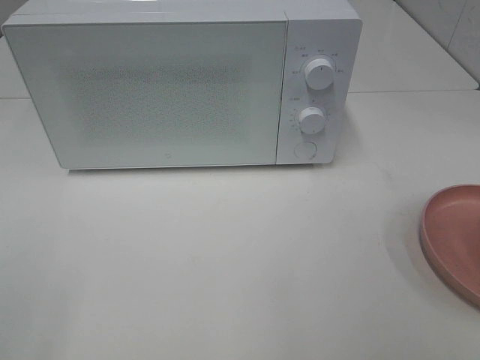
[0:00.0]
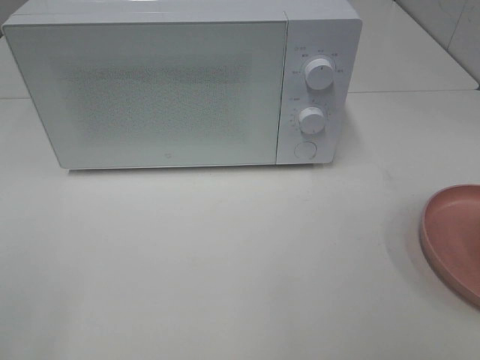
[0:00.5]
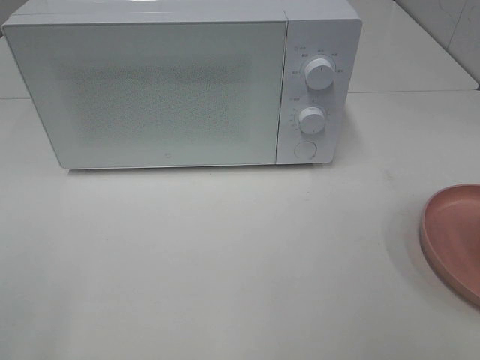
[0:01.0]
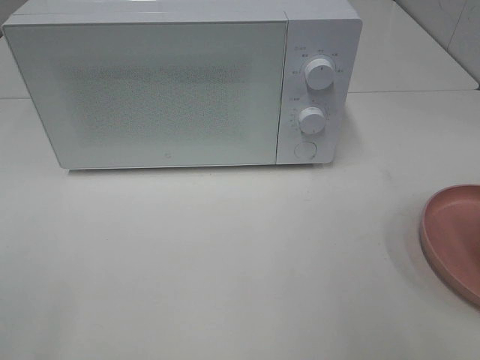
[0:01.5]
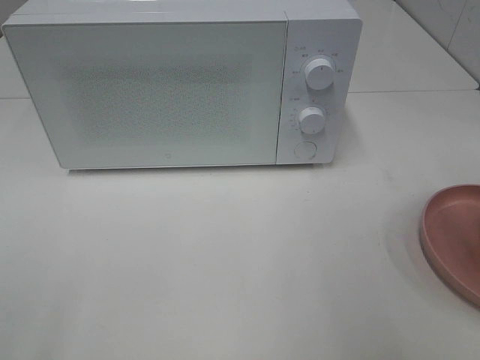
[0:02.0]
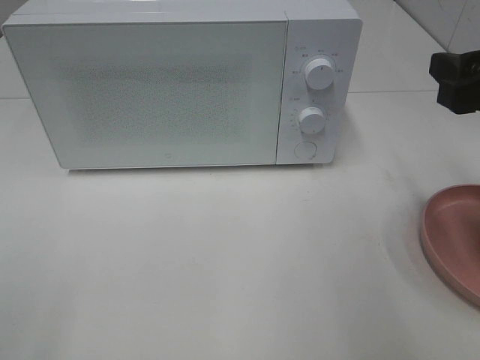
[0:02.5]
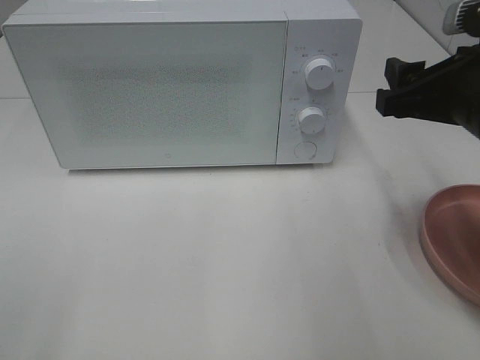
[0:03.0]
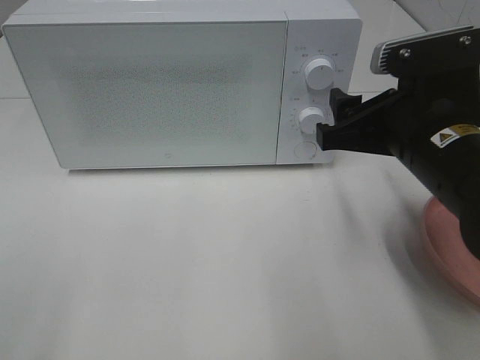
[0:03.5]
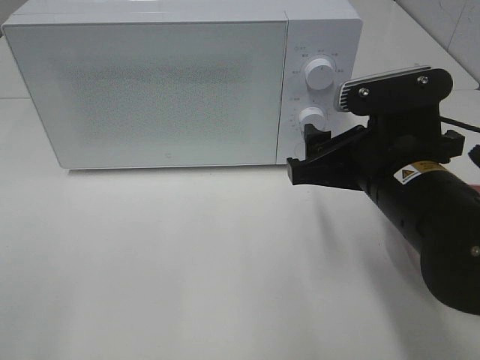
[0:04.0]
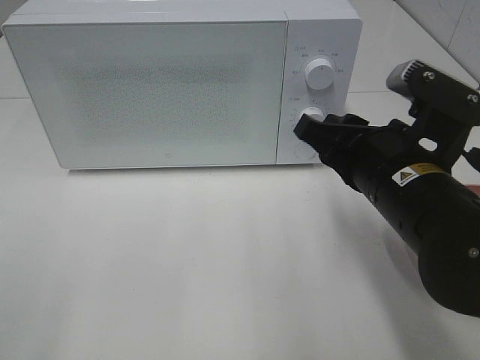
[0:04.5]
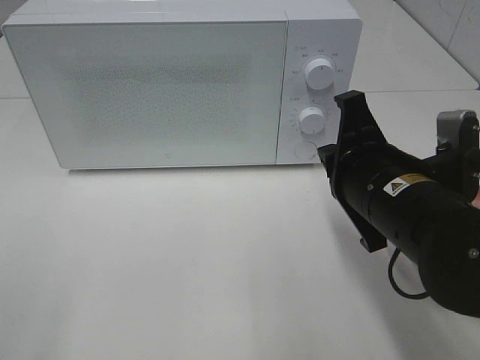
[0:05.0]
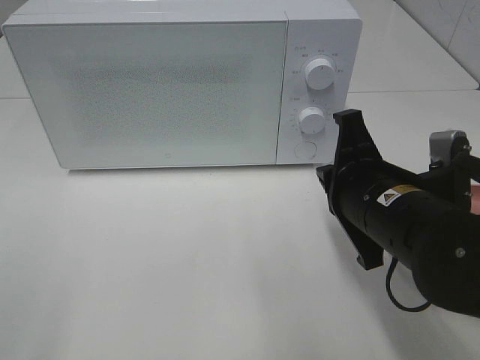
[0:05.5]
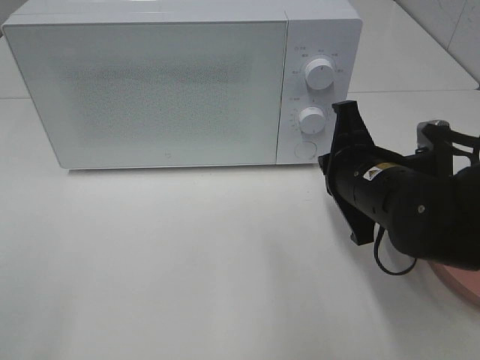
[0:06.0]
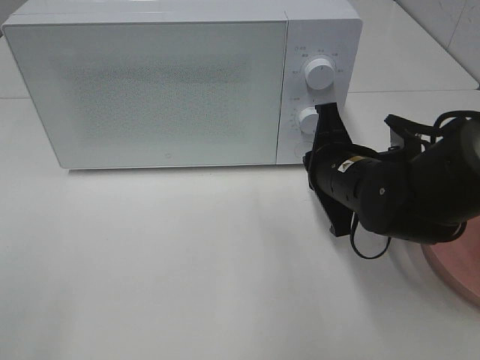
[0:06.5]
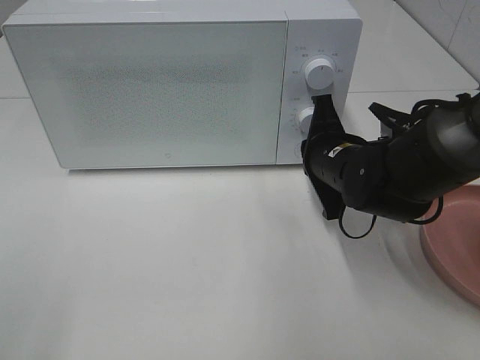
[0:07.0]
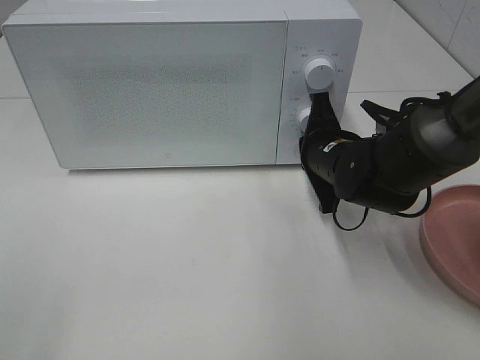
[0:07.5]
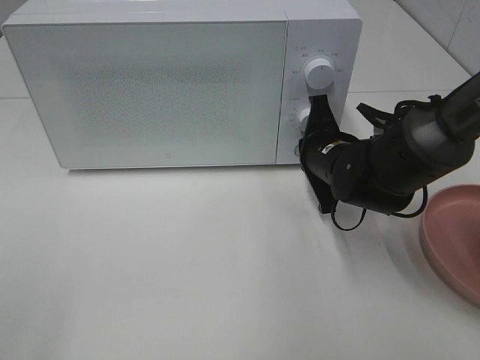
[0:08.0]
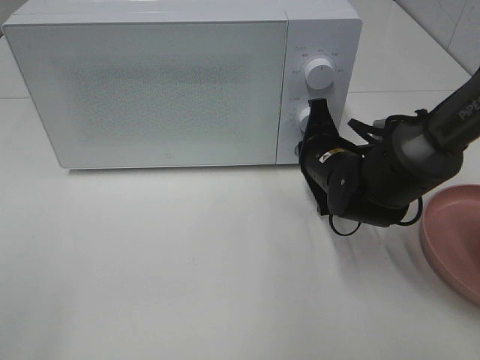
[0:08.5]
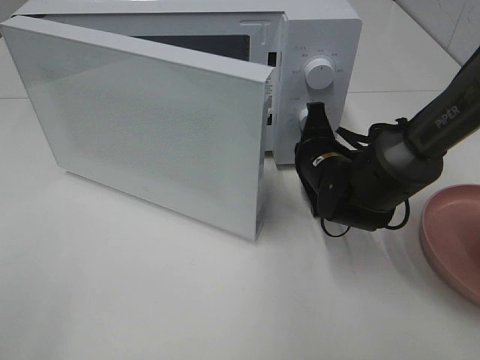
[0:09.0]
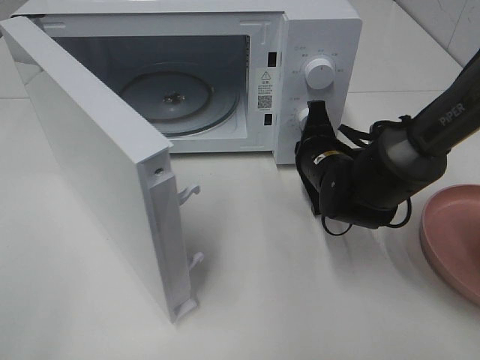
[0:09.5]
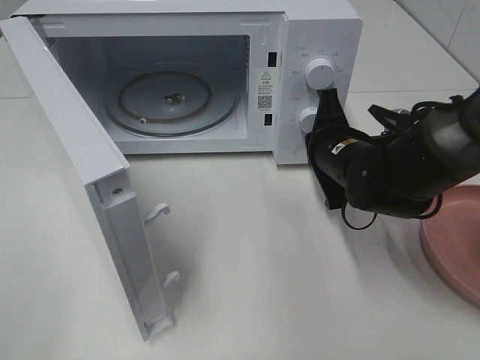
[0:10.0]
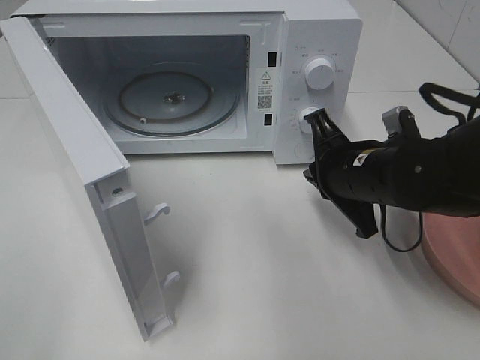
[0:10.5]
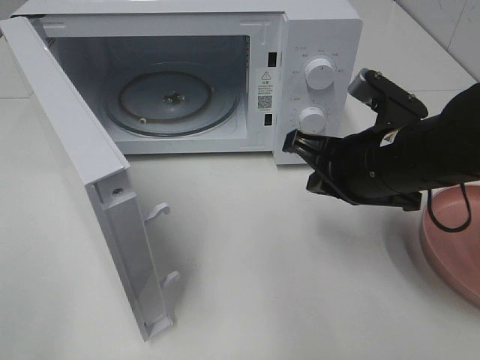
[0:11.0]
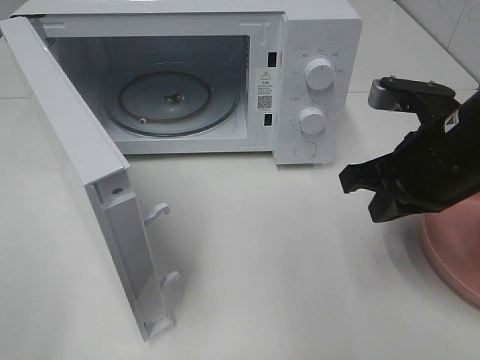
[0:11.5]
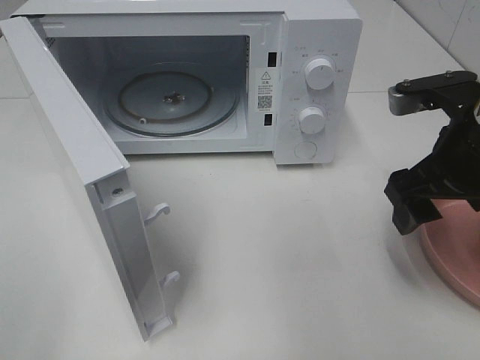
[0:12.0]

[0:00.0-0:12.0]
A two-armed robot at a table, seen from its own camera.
Task of the whole recording: Heat the burger.
Step, 0:00.0 to 0:10.0: Right hand: press the switch.
0:02.0 to 0:04.0: The right gripper is displaced to the left and downward by roughly 15 cm.
0:04.0 to 0:06.0: The right gripper shifts by approximately 5 cm, and closes its fingers.
0:06.0 to 0:08.0: The right gripper travels forward by approximately 10 cm.
0:10.0 to 0:12.0: The right gripper travels upward, backward and to the right by roughly 15 cm, and opens up.

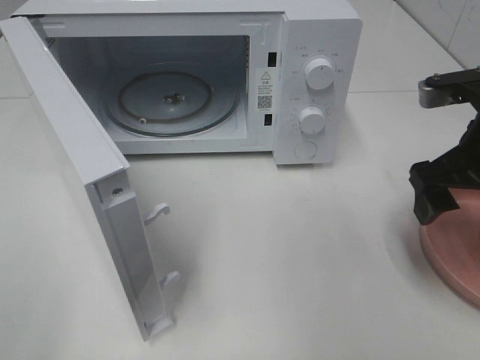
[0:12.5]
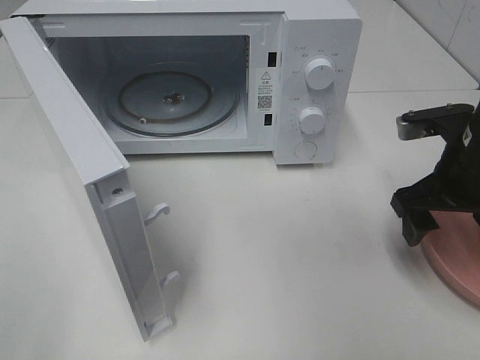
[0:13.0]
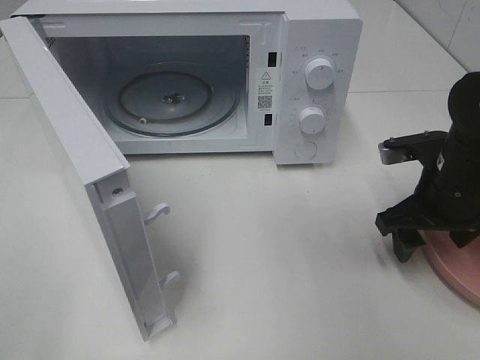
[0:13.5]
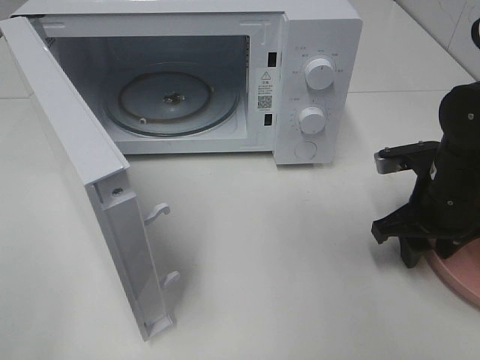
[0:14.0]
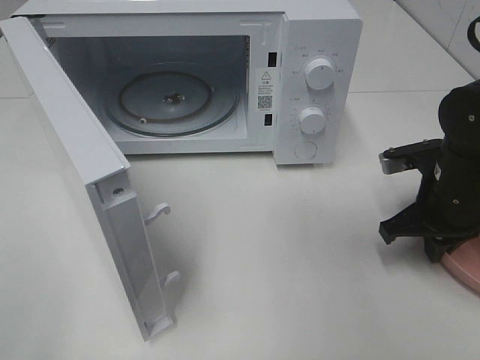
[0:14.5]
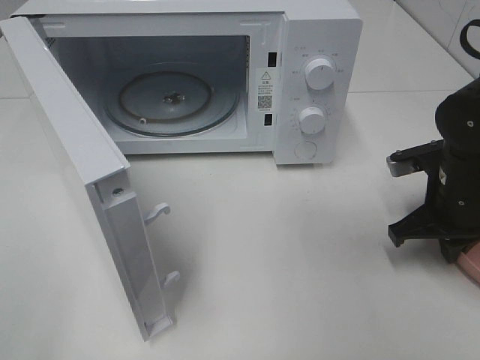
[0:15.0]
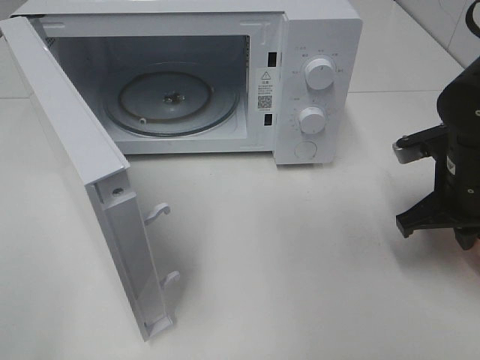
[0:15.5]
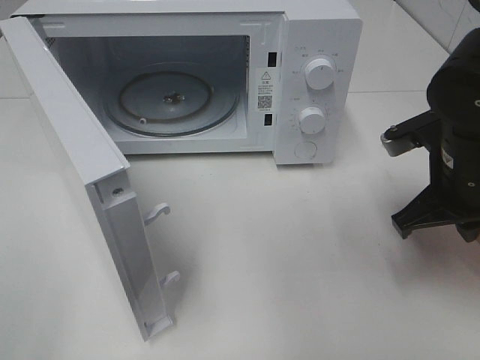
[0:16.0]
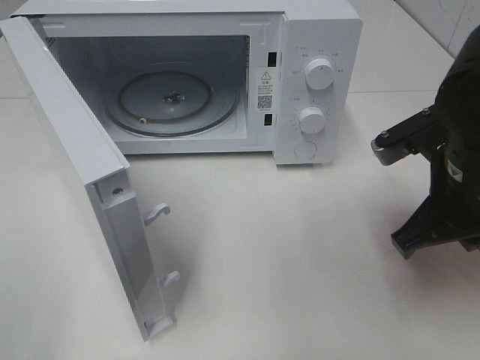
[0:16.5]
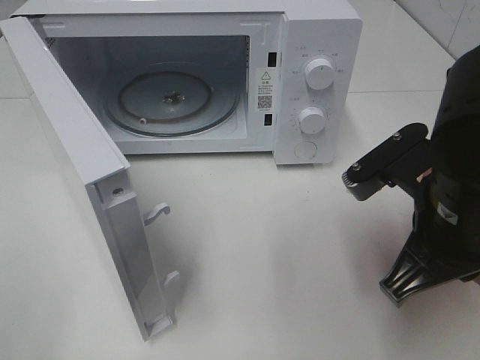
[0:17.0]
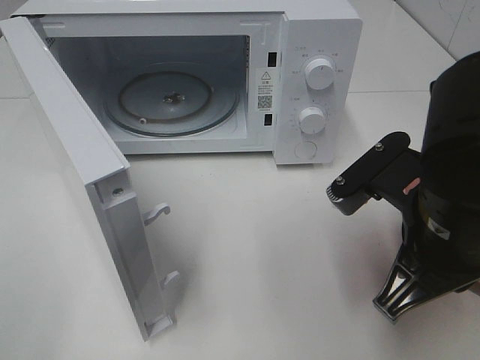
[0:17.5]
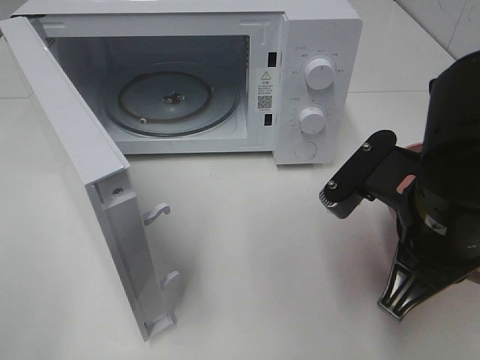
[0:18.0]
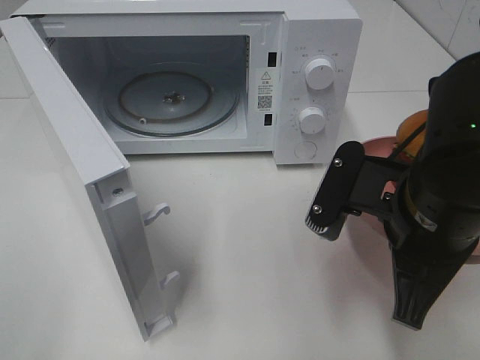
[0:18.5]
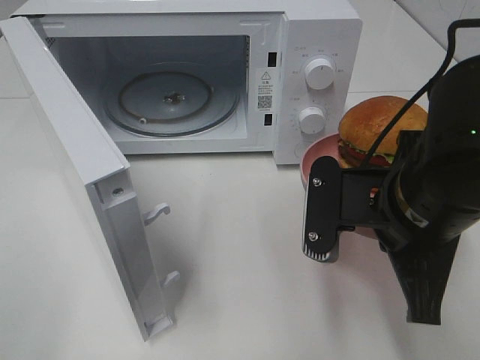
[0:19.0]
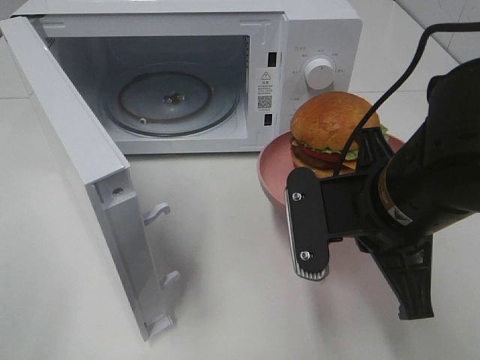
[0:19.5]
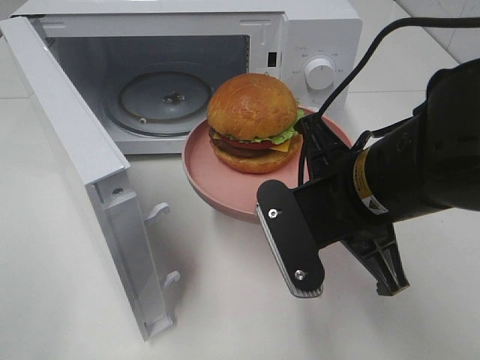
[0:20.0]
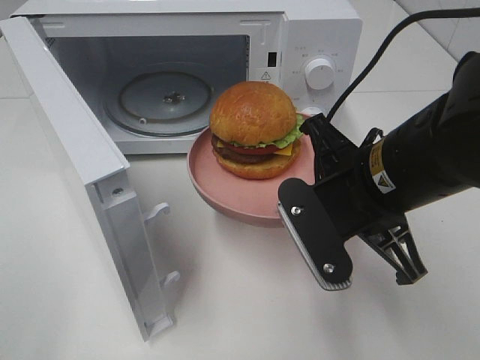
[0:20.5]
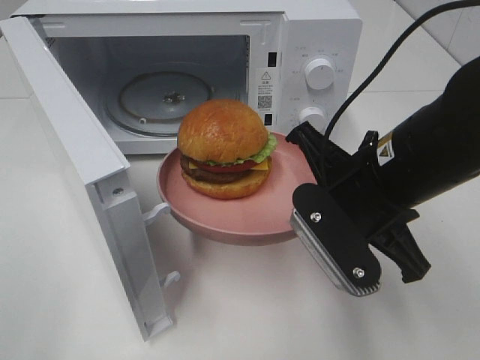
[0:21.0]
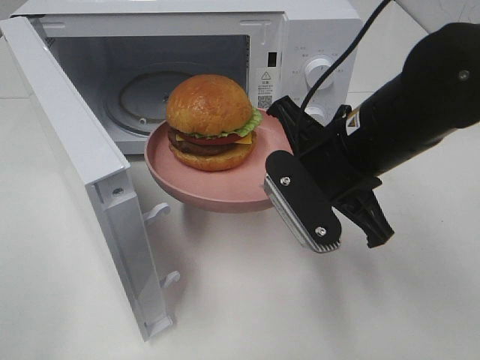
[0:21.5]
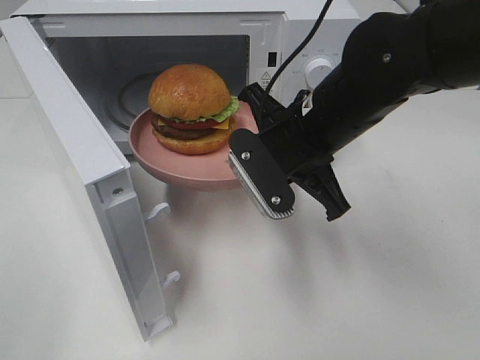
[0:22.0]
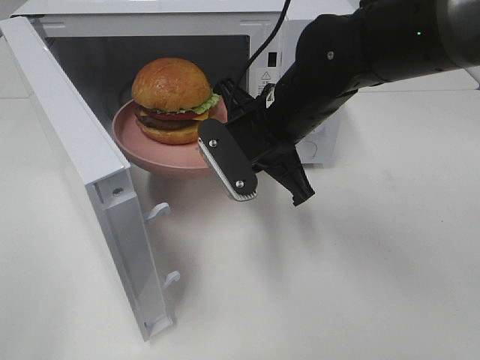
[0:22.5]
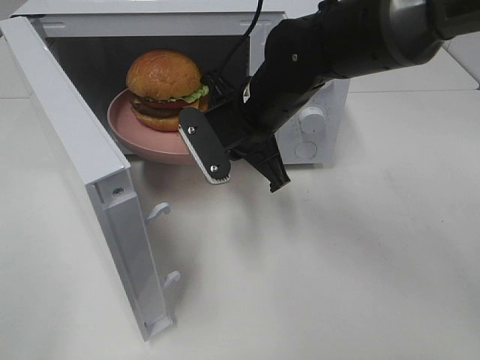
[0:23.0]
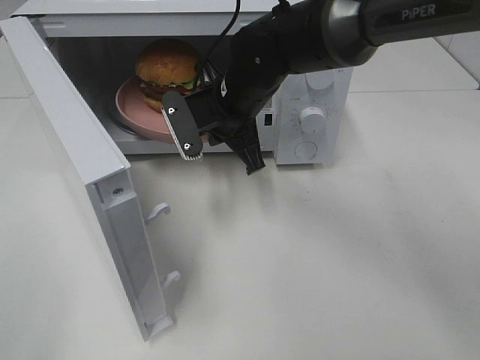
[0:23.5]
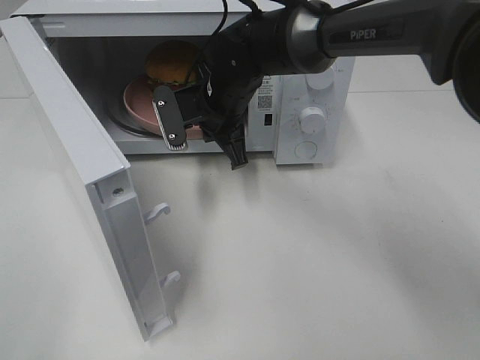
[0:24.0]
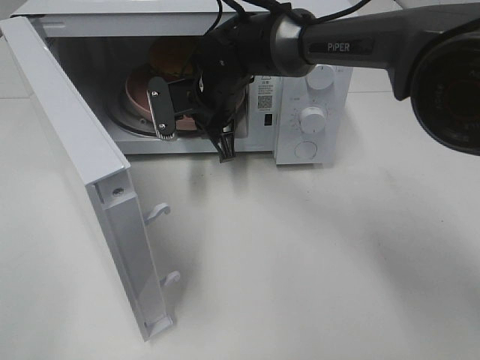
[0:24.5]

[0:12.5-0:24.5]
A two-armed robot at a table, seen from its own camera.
Task of the whole recording: Heat the burger.
Step, 0:12.5 to 0:14.5: Right hand: grab the plate with the hamburger.
0:12.5 to 0:14.5: The right gripper goes roughly 10 cm downward, and closes.
0:14.5 to 0:16.5: The right gripper travels upward, backward and to the left by some 10 cm.
0:16.5 to 0:18.5: The right gripper is displaced to the left by some 5 cm.
0:20.5 to 0:22.5: The right gripper moves forward and to the left, approximately 15 cm.
0:22.5 to 0:24.5: The right gripper is displaced forward and to the left by approximately 15 cm.

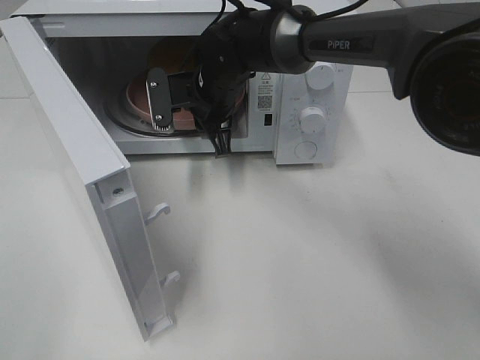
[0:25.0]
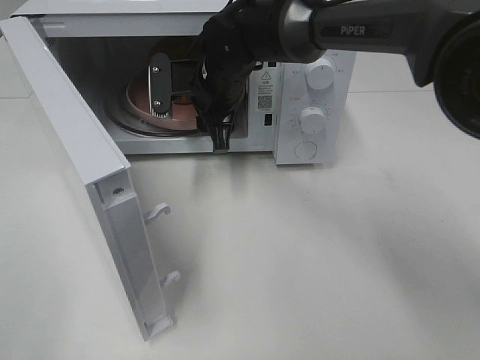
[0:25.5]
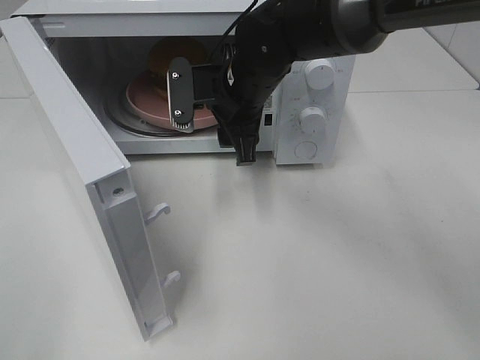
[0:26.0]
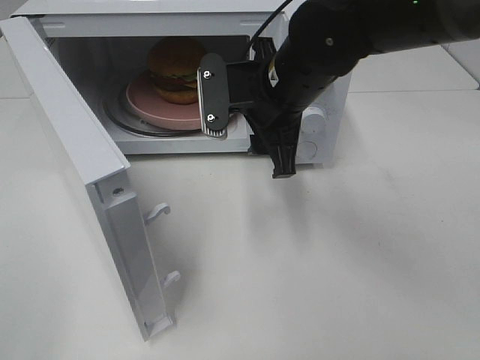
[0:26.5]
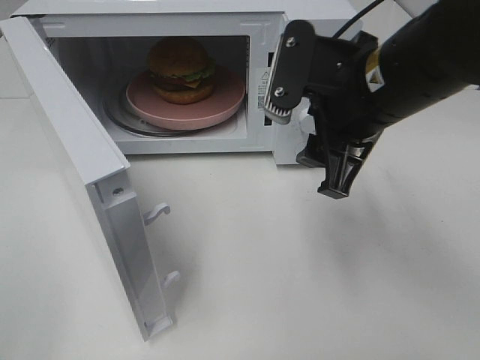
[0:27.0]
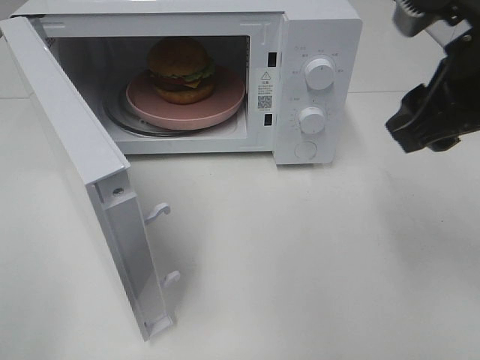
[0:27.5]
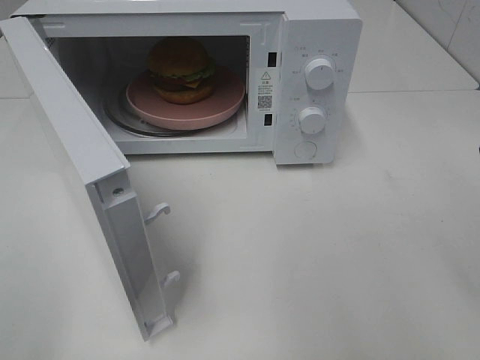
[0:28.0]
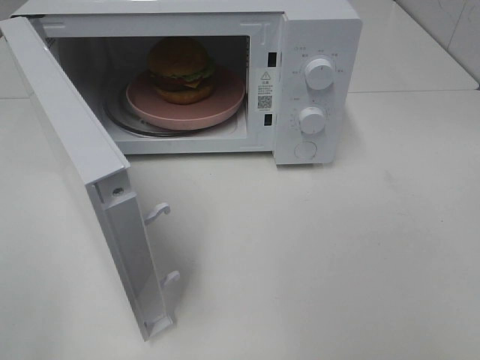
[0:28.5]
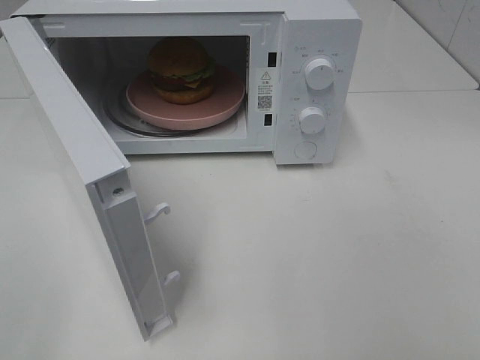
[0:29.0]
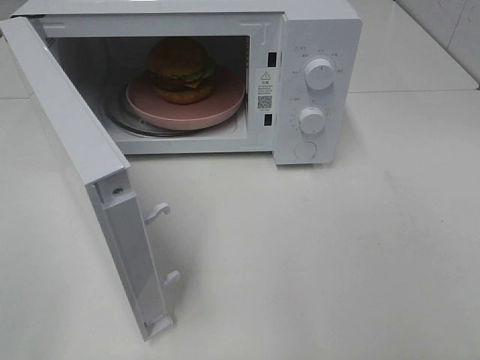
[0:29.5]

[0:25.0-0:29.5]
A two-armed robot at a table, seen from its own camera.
Task of the whole recording: Heat the burger.
0:25.0 to 0:27.0: The right gripper travels backward, to the right and upward by approximately 25 cm.
0:27.0 to 0:29.5: The right gripper travels backward and to the right by some 30 cm.
